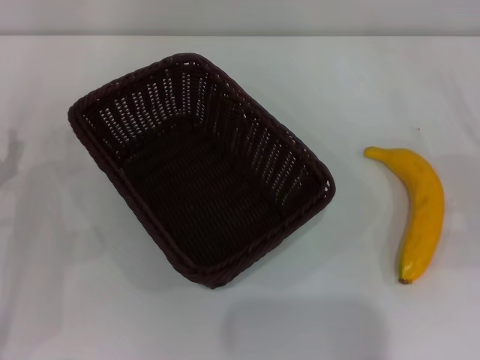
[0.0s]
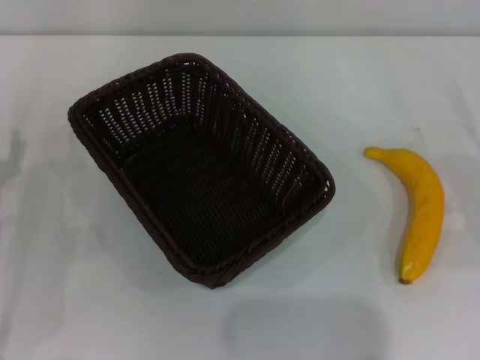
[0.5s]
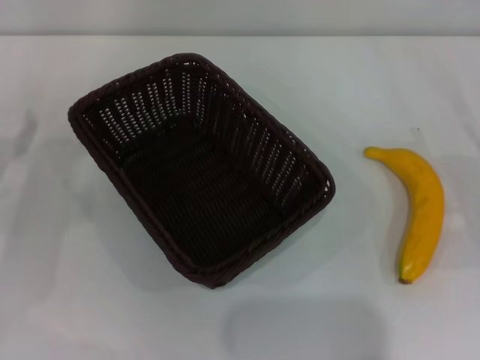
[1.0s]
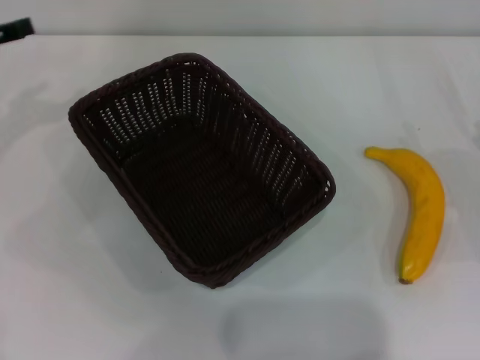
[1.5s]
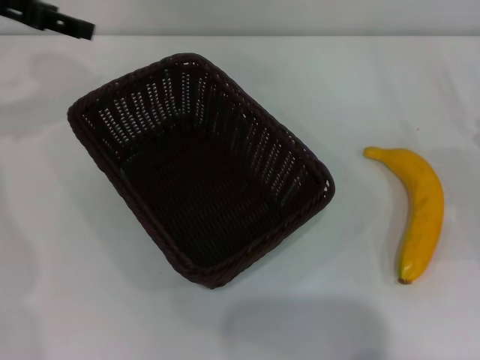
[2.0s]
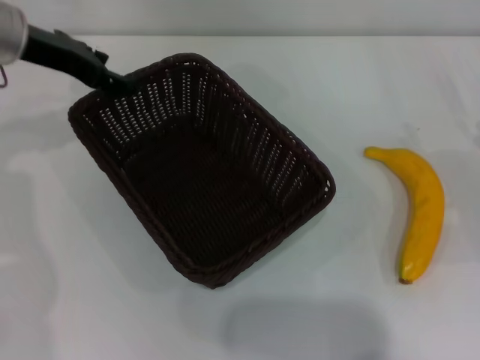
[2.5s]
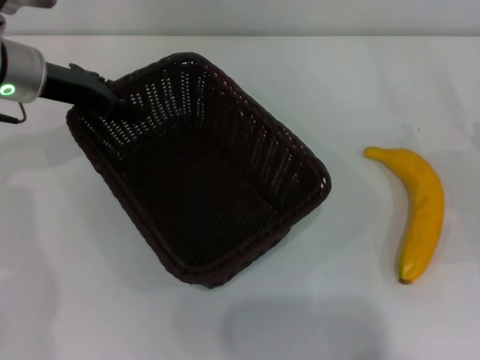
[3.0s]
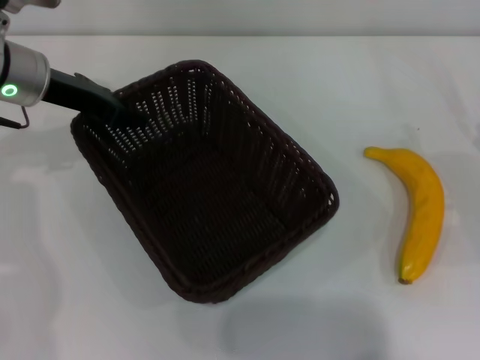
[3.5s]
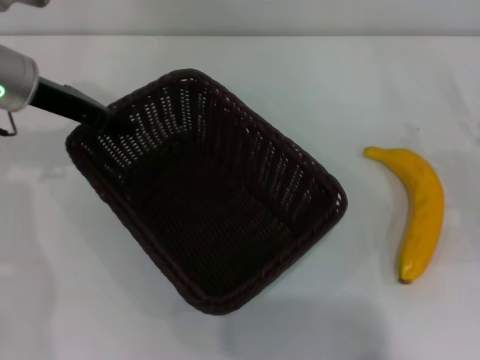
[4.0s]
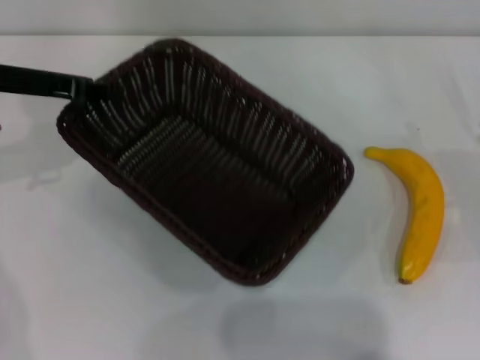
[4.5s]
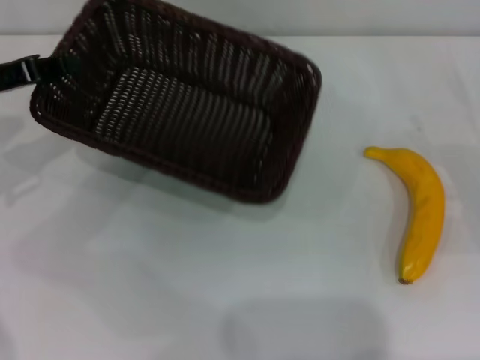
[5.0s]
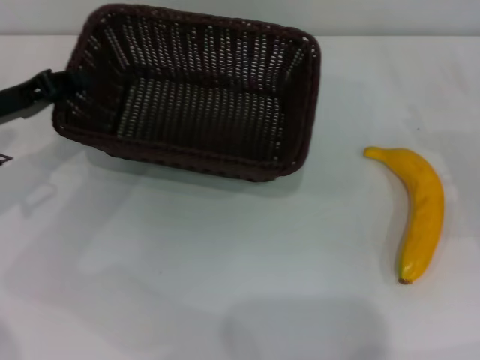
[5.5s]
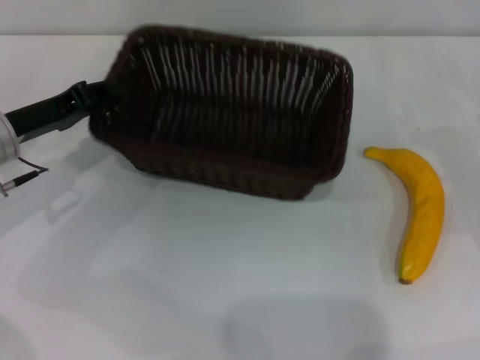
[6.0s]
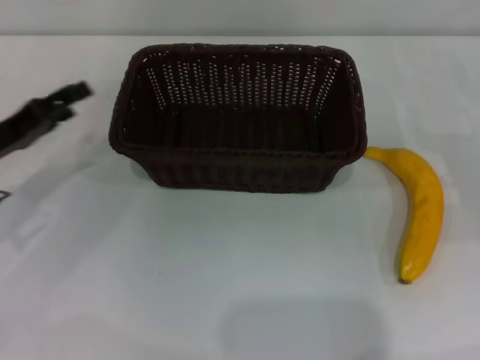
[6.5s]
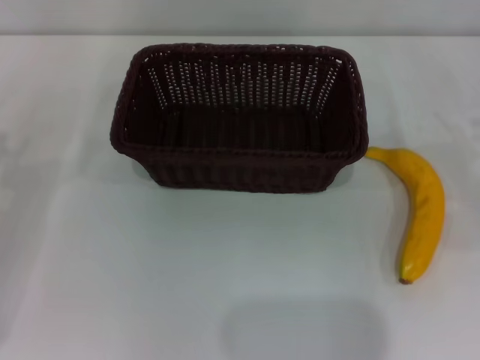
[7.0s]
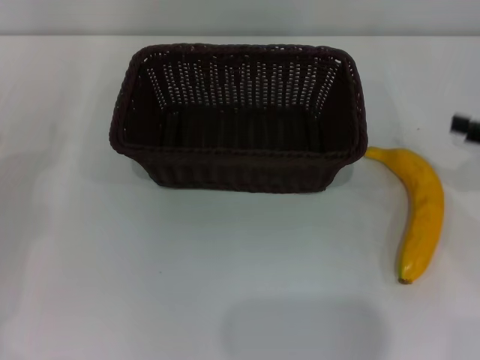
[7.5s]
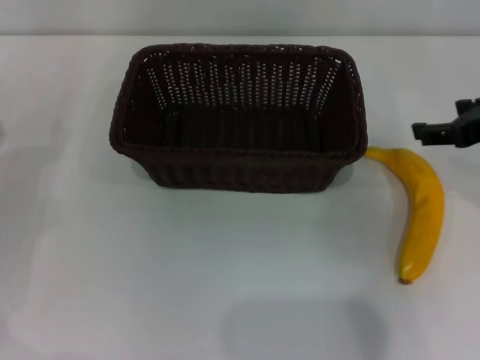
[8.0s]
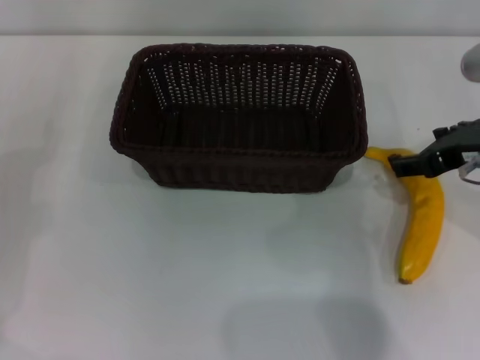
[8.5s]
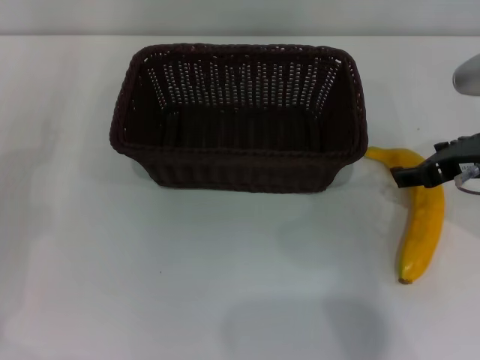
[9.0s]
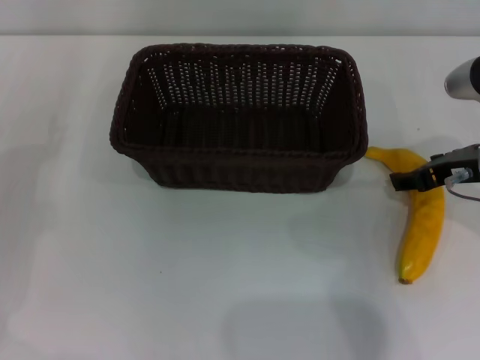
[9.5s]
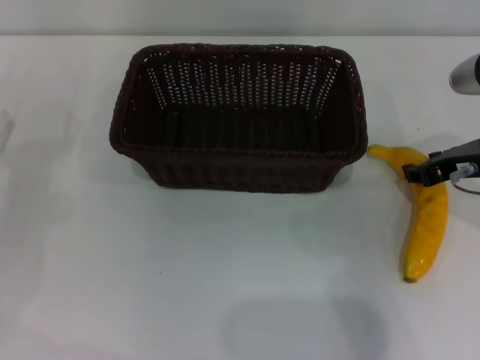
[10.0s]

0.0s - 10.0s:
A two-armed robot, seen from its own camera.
Step, 0.0s - 4.5s: Pick up the dark basket with the left gripper.
Step, 5.0s - 6.5s: Place the dark basket in the center of view with the left gripper.
0.0s - 2.0s: The left gripper goes some 30 cm upward and forward.
2.0s - 4.0s: The left gripper travels downward by approximately 10 cm, and closes its fingers.
4.0s - 6.0s: The left gripper goes roughly 10 cm downward and backward.
6.0s - 8.0s: The left gripper shifts roughly 10 cm to the left and backward, and opens, while the right gripper shifts some 15 cm upward and to the left.
8.0s - 10.0s: The right gripper shifts approximately 5 cm downward, and closes.

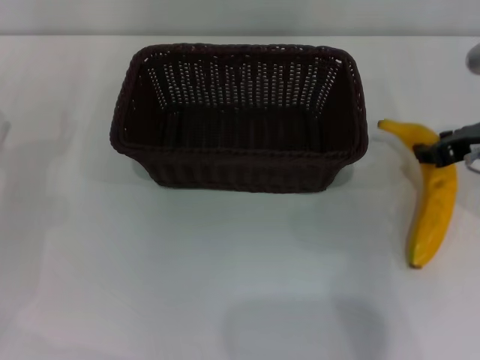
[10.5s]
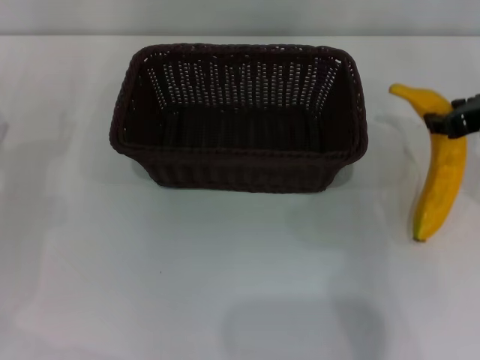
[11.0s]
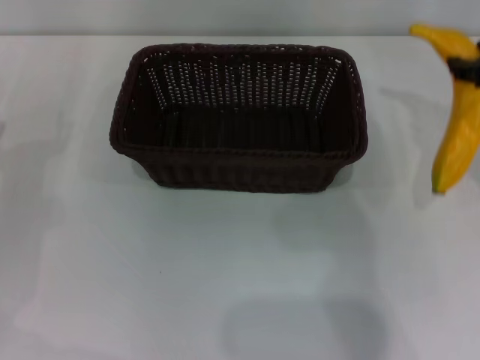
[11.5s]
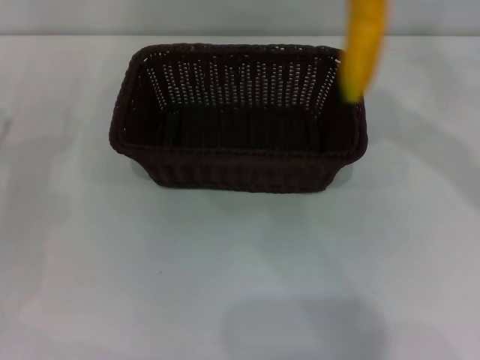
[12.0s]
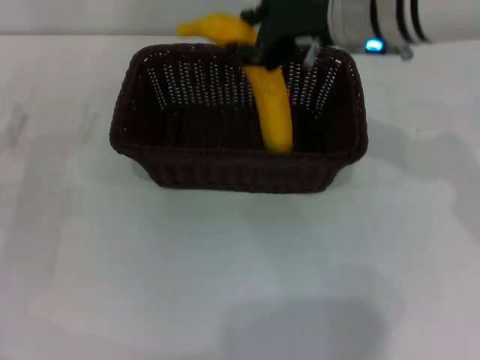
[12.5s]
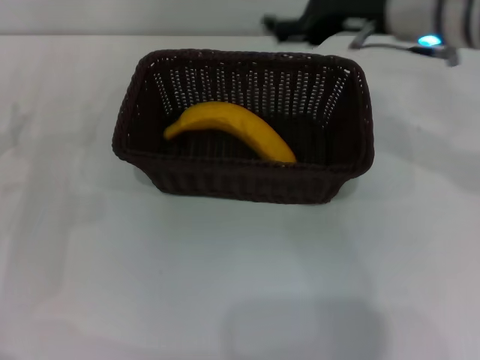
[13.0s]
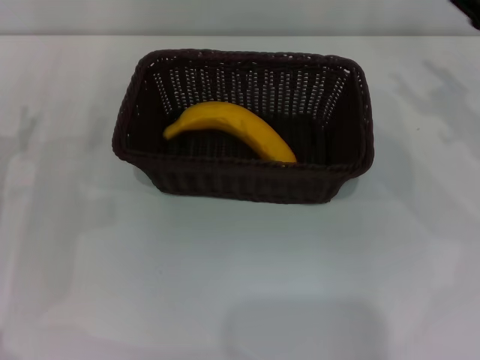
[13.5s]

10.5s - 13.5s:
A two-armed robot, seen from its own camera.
Step, 11.5s - 12.5s: Place the banana into the dark basket with the right gripper.
10.5s - 12.0s: The right gripper shifts approximately 15 cm upward and to the left.
12.0s - 13.5s: The right gripper moves downward and to the right, about 20 cm, and opens its fingers.

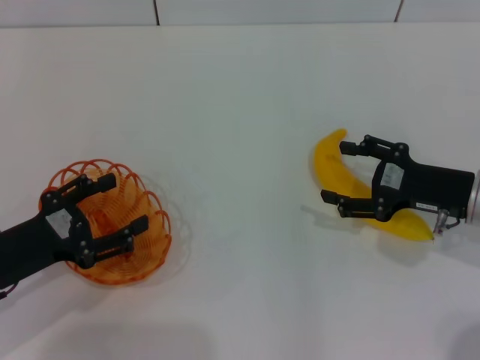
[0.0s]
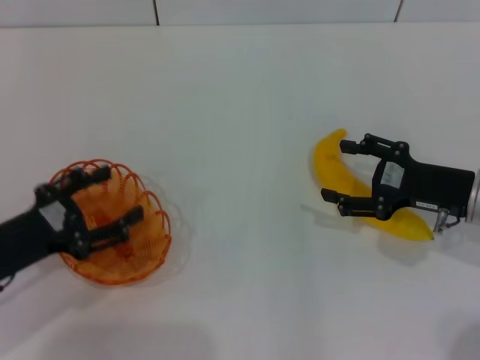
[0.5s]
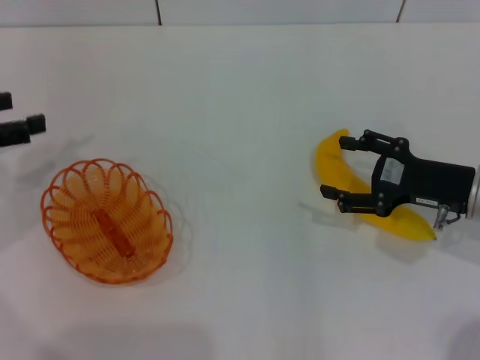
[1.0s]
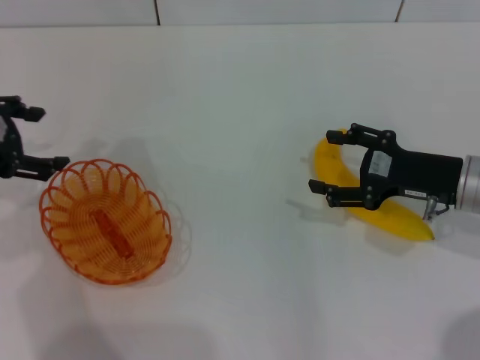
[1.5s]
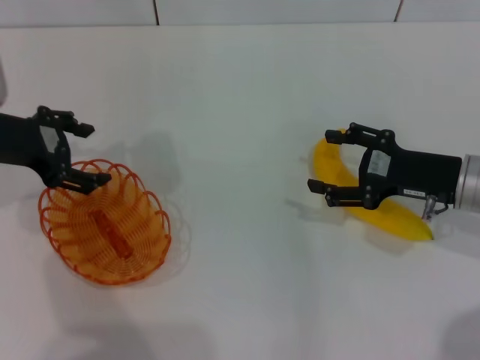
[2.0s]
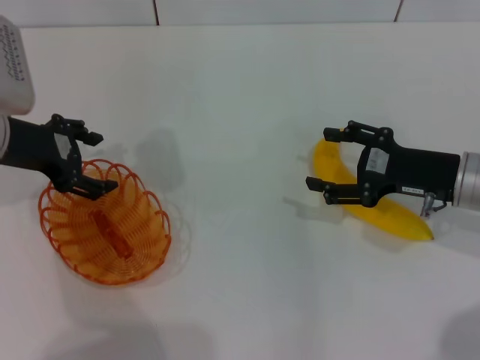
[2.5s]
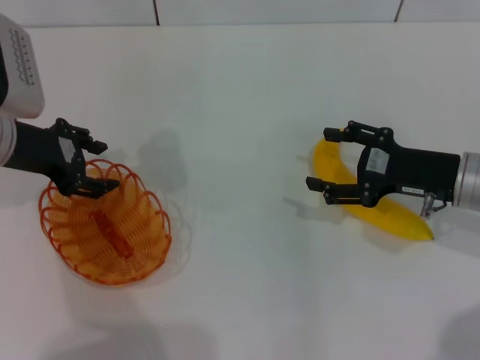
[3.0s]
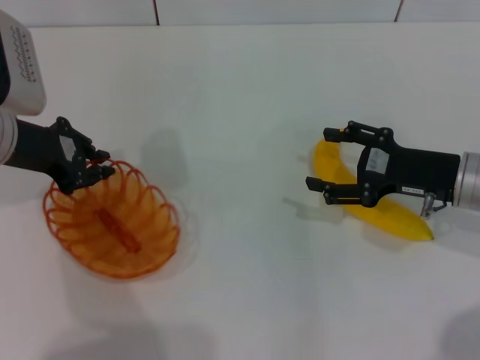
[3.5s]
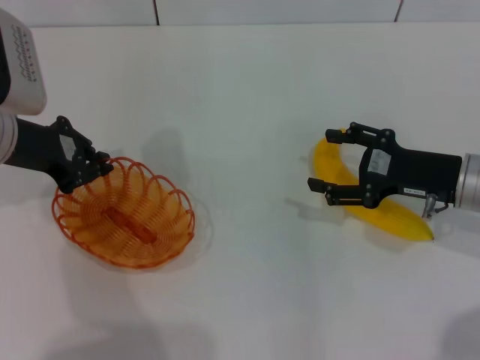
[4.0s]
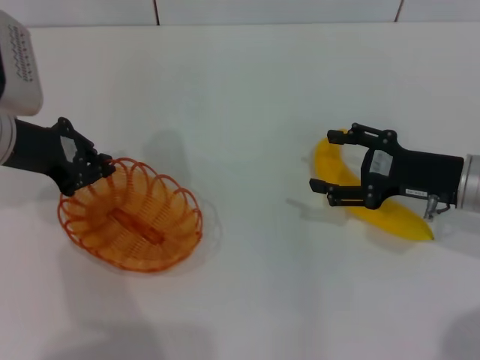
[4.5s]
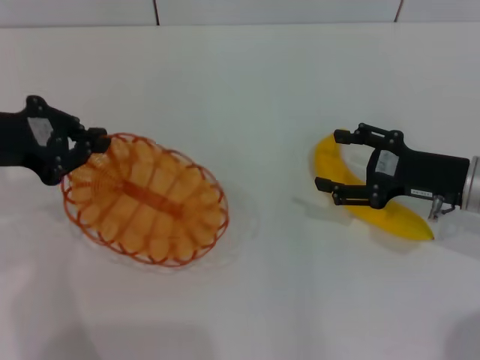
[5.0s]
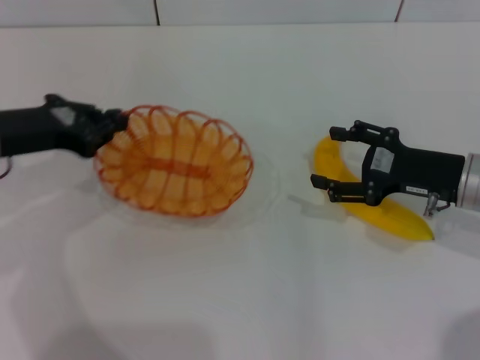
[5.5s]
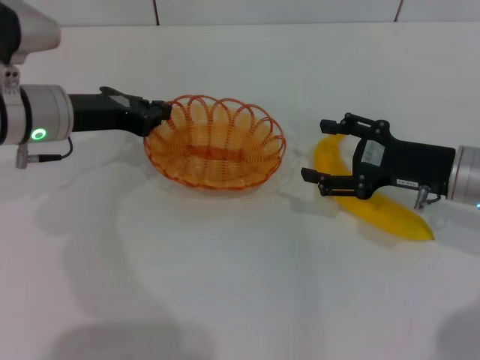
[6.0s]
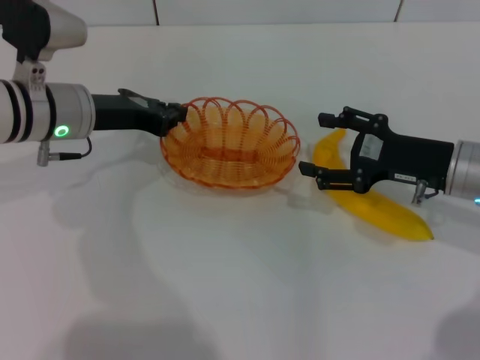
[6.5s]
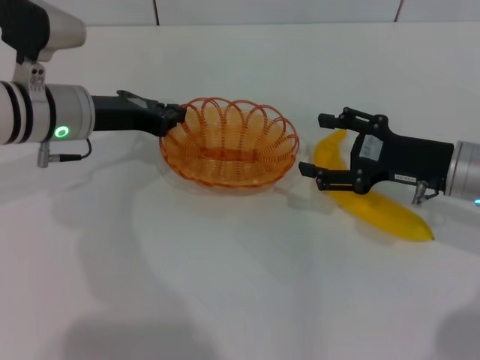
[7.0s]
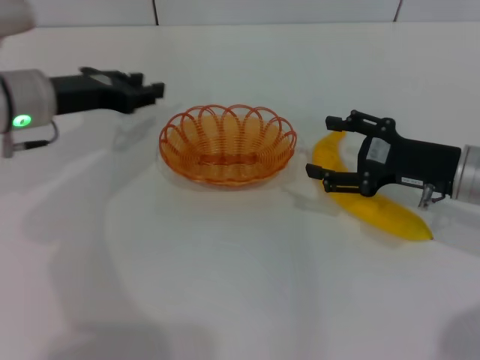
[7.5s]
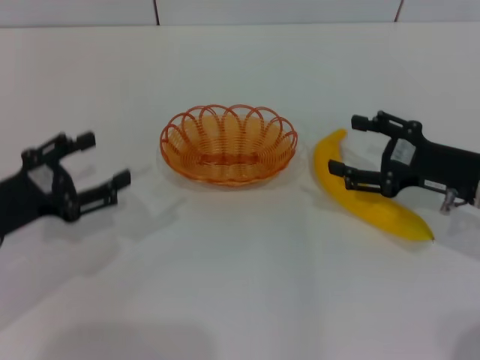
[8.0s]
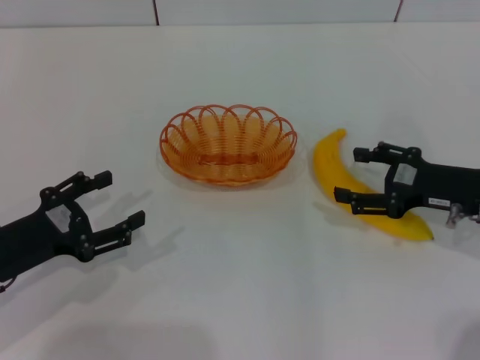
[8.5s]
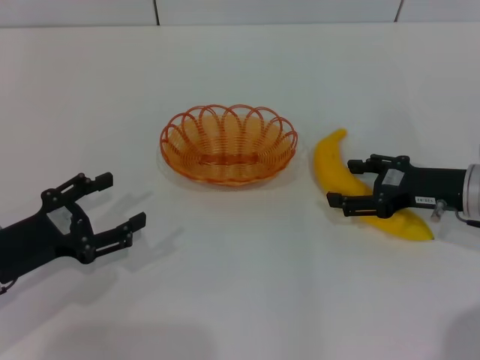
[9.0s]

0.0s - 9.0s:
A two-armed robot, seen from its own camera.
Step, 0.0s - 4.5s: Pick up the basket with the left gripper.
Step, 5.0s - 7.0s: Place the basket in the center of view with the left gripper.
0.0s - 2.0s: The left gripper is displaced forward and upward by some 15 cm.
2.0s - 4.5s: The left gripper closes its fingers.
4.5s - 7.0s: The left gripper goes some 5 cm to the right.
7.0s - 9.0s: The left gripper shifts about 20 cm backward, to the left and downward, and opens its fingers.

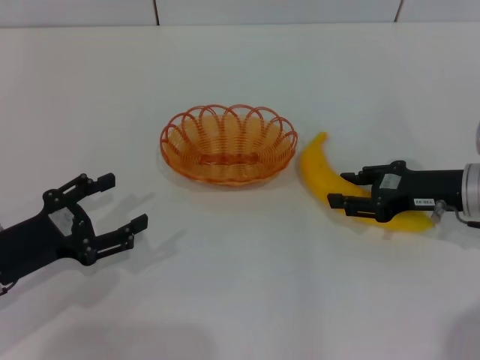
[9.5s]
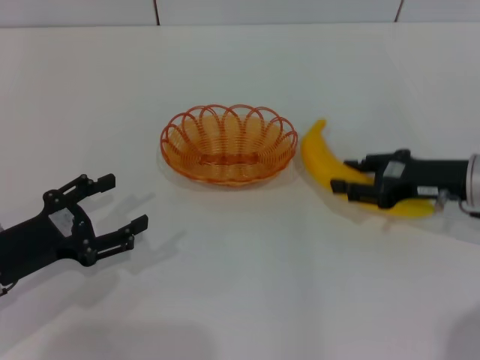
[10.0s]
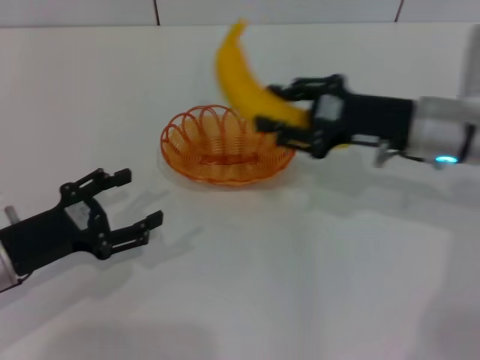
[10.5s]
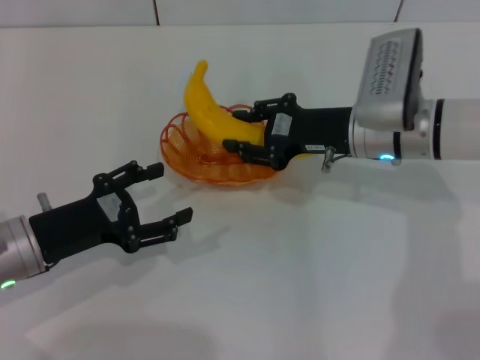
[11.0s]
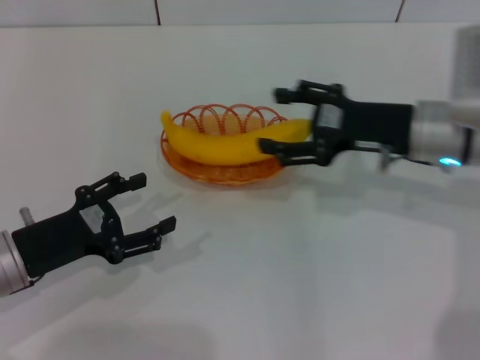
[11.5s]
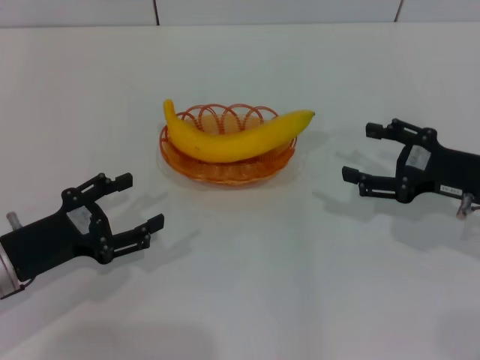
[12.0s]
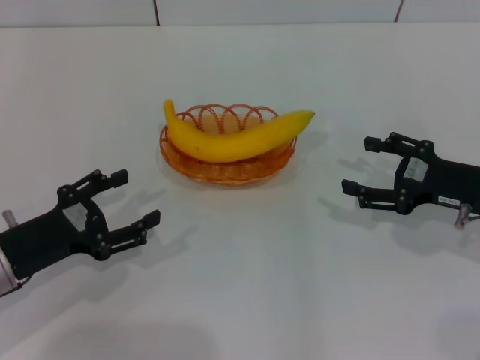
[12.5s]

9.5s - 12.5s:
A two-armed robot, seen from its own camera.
Step, 10.5s - 11.0s: Place the banana into the basket with the right gripper.
9.5s - 11.0s: The right gripper travels to the left and forward by roughly 15 cm, and closes its fingers.
11.0s - 12.5s: The right gripper is displaced to the right and backward by about 15 cm, and opens its fingers.
